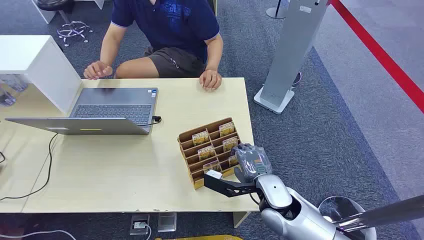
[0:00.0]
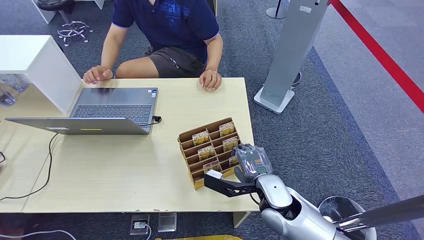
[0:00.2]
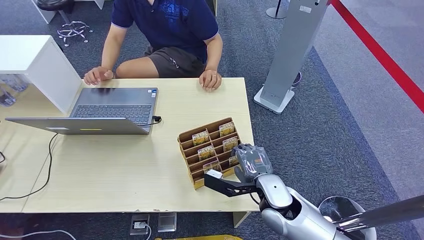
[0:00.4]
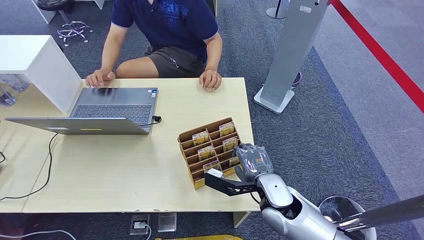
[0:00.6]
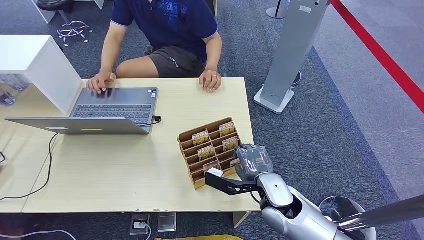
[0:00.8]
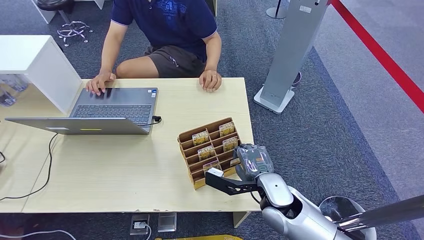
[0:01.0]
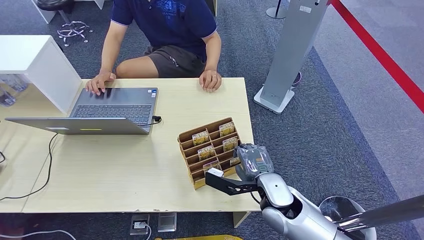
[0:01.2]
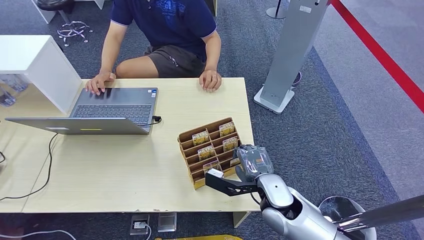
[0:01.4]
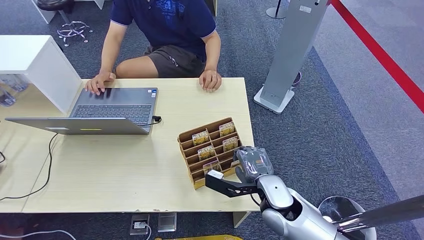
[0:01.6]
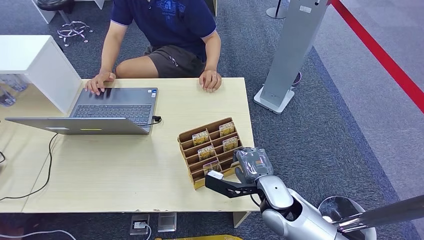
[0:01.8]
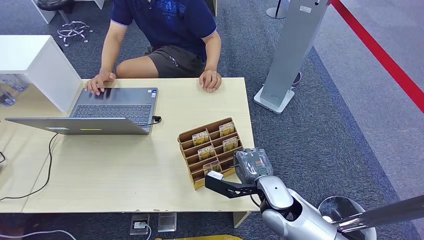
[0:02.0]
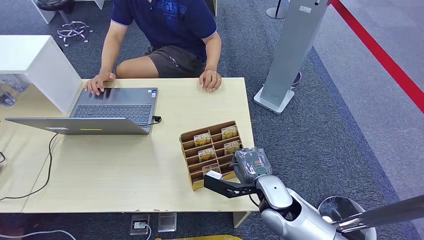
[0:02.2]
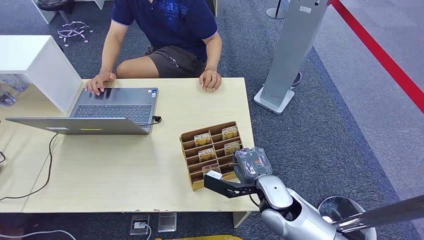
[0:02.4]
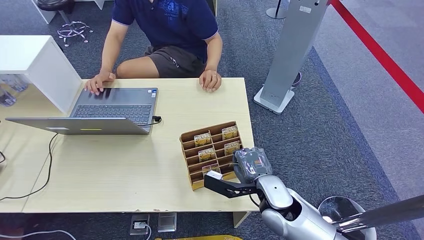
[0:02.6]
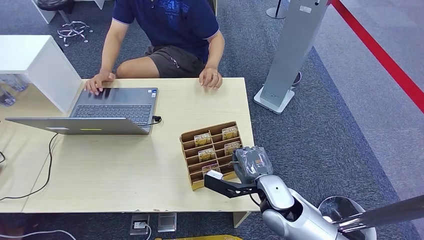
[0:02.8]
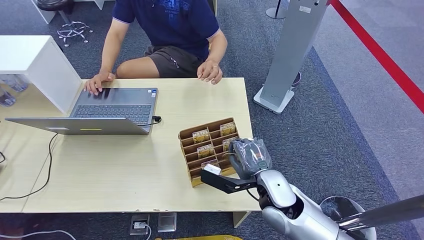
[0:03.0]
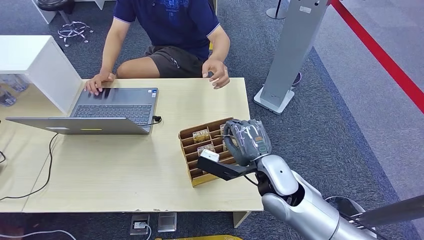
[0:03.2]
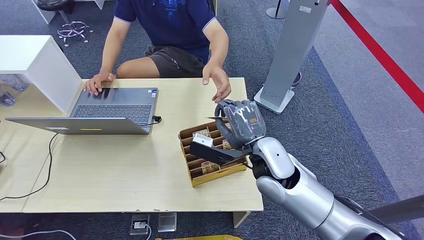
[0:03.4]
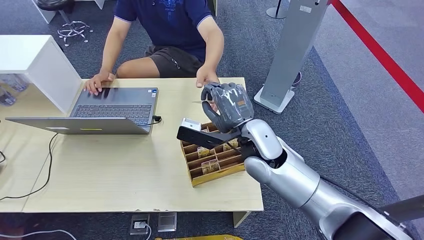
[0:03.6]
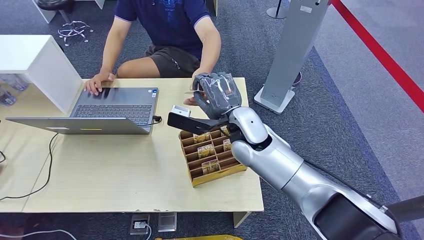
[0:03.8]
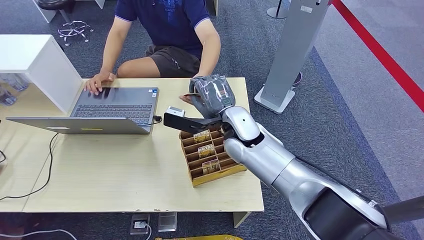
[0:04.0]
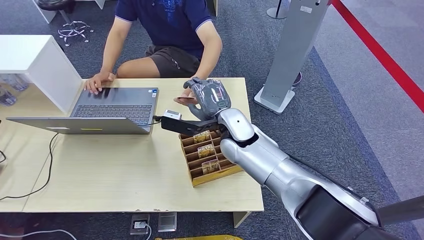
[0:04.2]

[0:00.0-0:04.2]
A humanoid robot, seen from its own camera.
Step, 0:00.0 to 0:03.0: Pick up the key card from the card box.
Step, 0:03.4 to 0:04.2: Hand the key card to the target.
0:01.4 to 0:02.8: Both hands stay put.
0:02.8 to 0:04.2: The right hand heads forward, to the left and upward, covering approximately 20 cm.

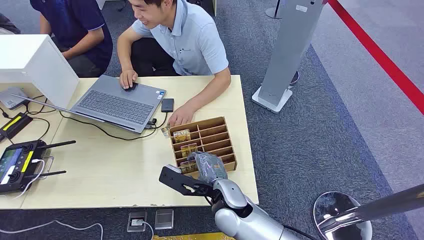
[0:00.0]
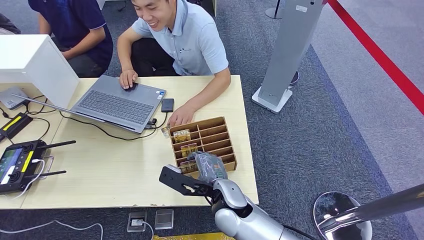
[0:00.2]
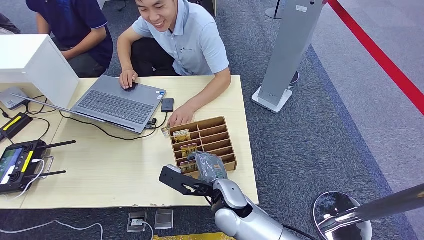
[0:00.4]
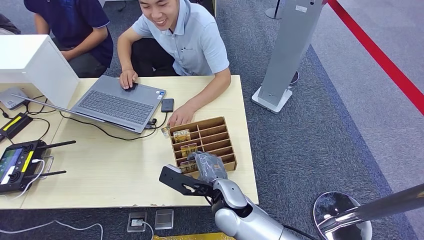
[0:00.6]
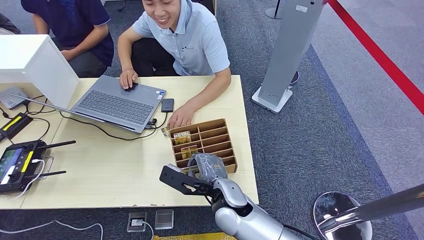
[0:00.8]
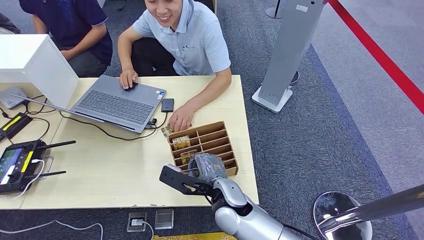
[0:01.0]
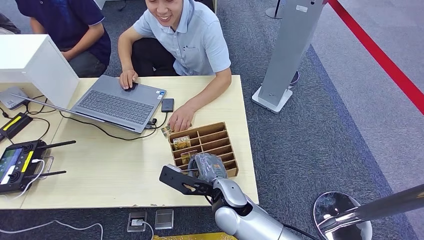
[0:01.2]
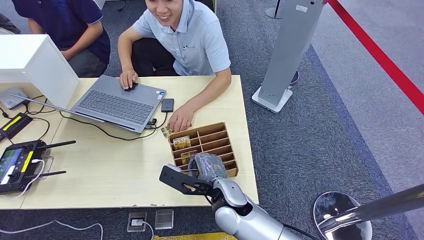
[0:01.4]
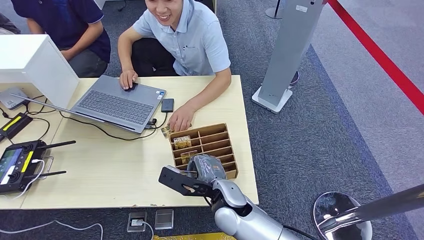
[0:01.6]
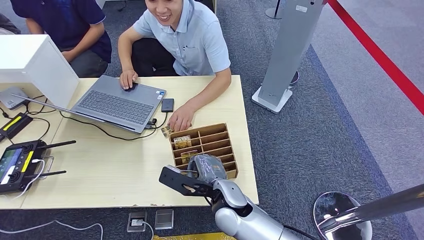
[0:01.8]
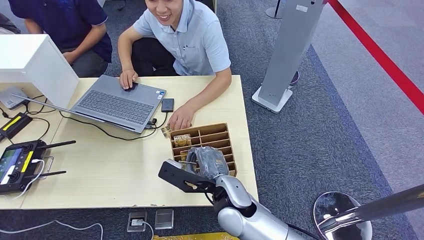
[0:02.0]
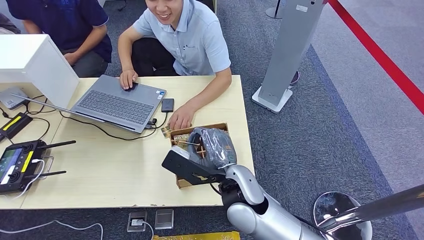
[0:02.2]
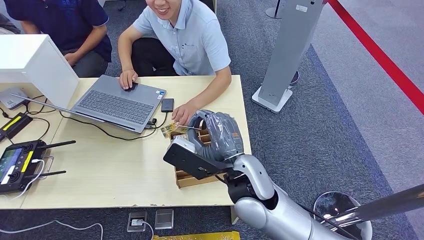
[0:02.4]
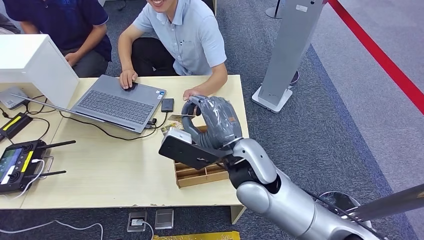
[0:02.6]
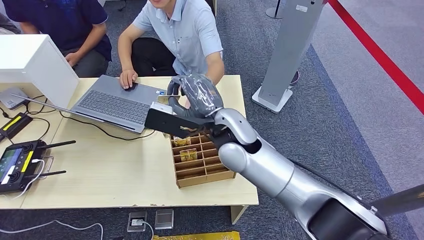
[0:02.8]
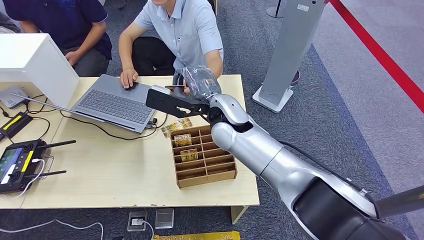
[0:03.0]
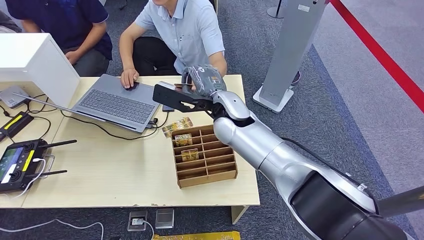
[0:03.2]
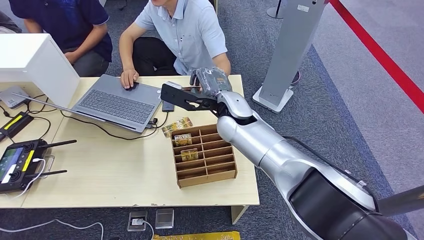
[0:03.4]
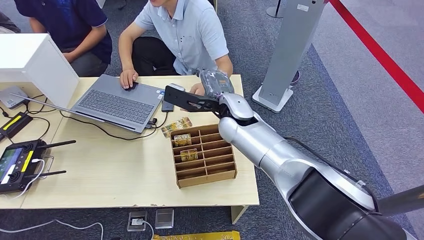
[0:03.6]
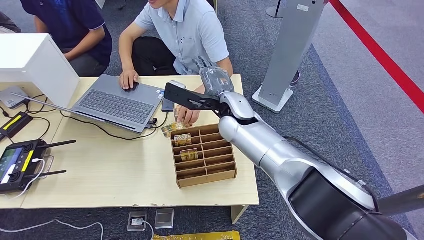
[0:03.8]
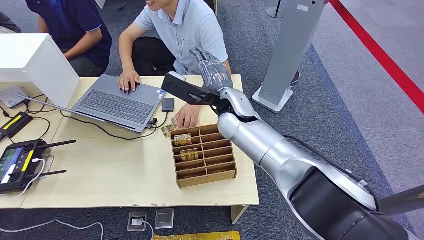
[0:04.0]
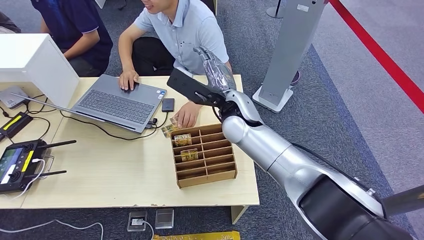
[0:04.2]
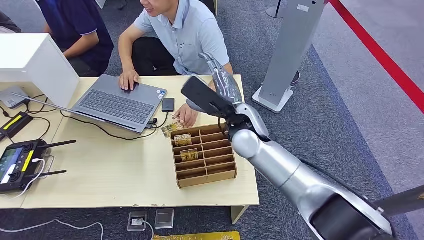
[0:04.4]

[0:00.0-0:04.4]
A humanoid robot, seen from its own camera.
Step, 0:00.0 to 0:02.2: Pick up the key card from the card box.
Step, 0:02.6 to 0:04.2: Hand the key card to the target.
0:03.0 to 0:04.4: The hands stay close to where they were, moving slightly.

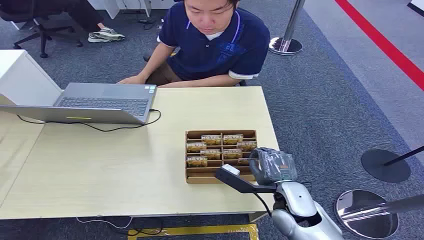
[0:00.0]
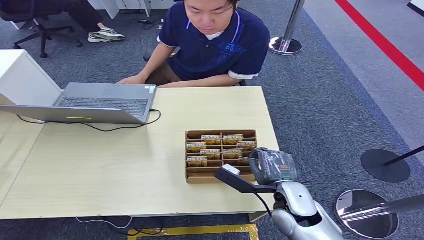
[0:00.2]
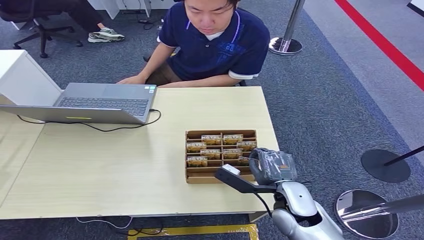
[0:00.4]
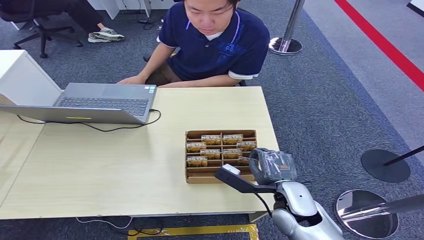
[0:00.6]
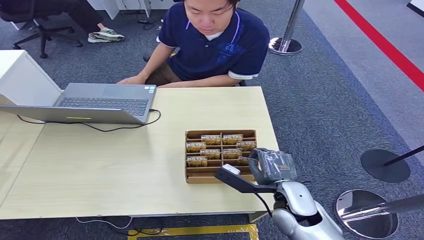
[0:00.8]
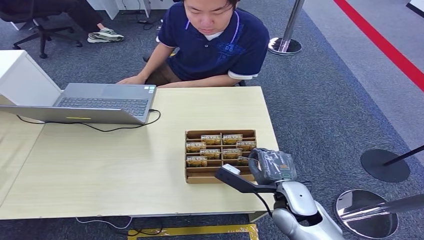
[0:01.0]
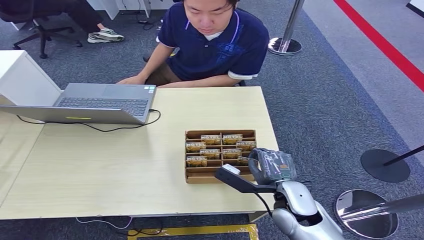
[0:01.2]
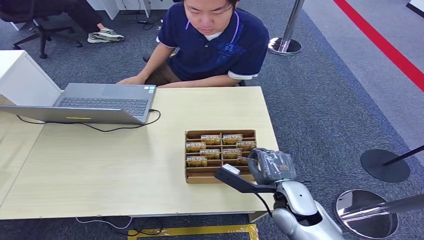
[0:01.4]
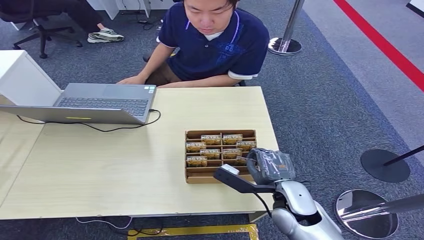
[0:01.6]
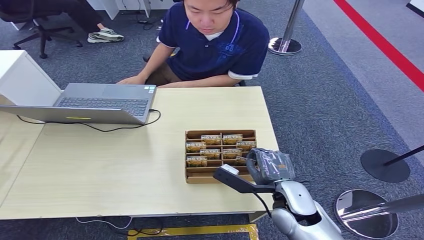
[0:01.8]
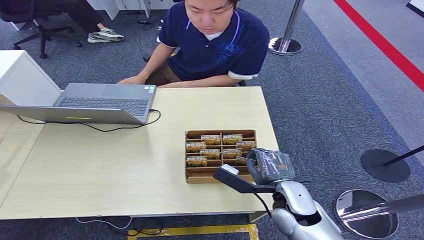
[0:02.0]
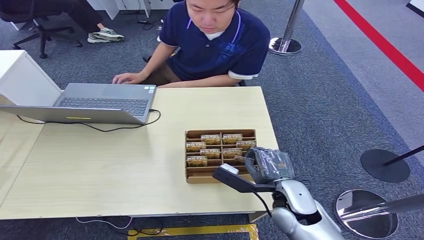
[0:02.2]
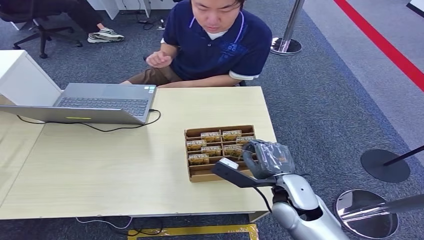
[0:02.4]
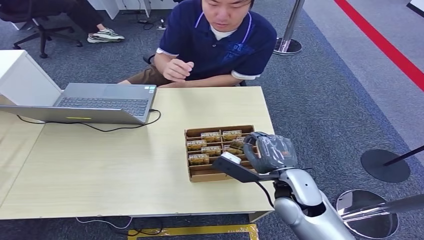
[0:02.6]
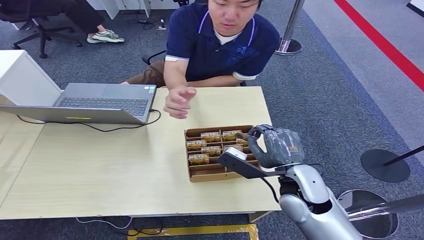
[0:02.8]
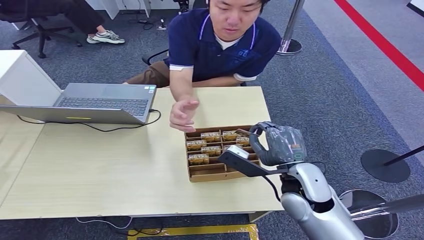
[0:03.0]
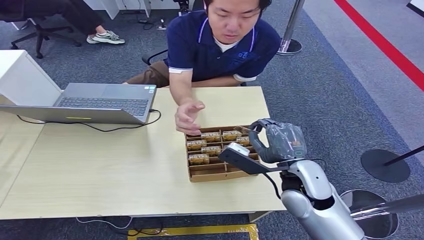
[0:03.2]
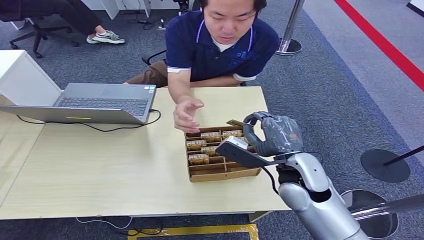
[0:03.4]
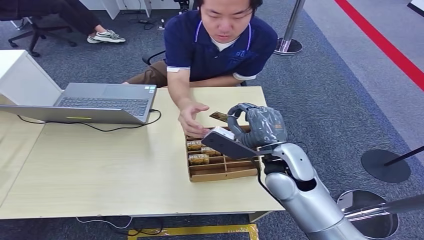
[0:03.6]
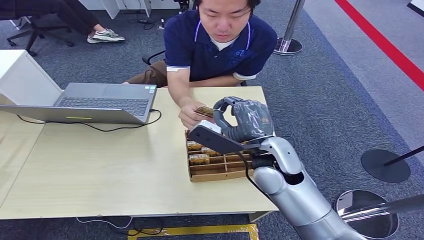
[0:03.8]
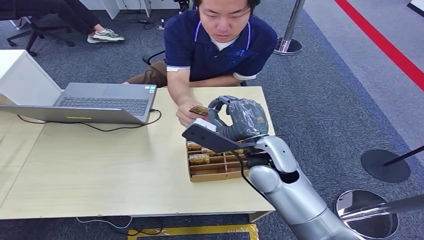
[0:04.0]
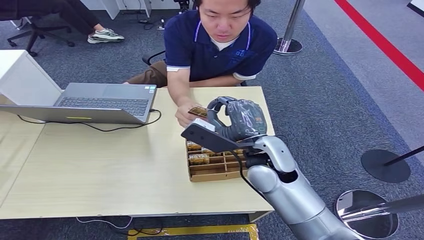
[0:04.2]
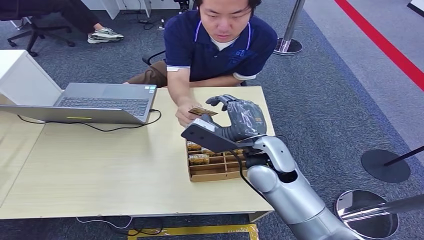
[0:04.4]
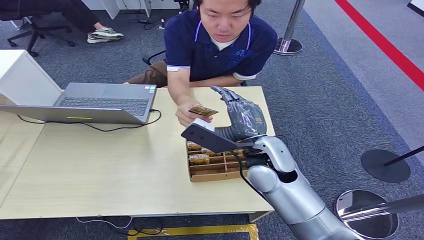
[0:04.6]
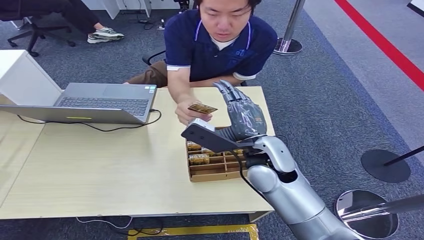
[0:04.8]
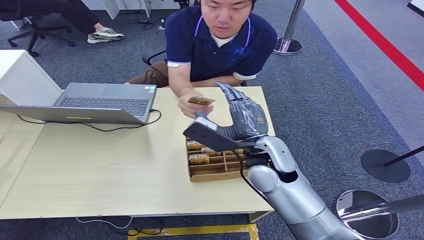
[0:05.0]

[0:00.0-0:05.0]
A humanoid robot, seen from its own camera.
Step, 0:00.0 to 0:03.4: Pick up the key card from the card box.
Step, 0:03.6 to 0:05.0: Hand the key card to the target.
0:01.6 to 0:03.4: The right hand travels upward by some 10 cm.
0:03.4 to 0:05.0: The right hand shifts some 5 cm to the left.

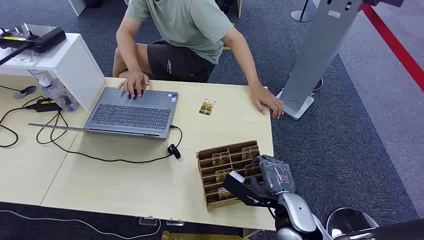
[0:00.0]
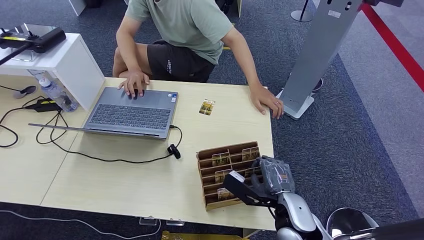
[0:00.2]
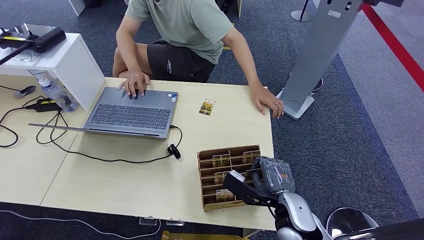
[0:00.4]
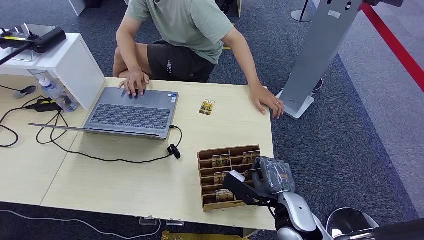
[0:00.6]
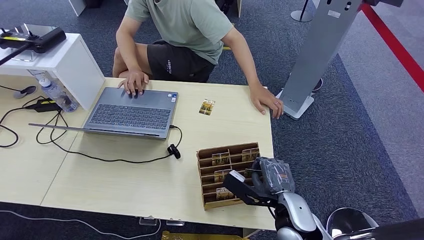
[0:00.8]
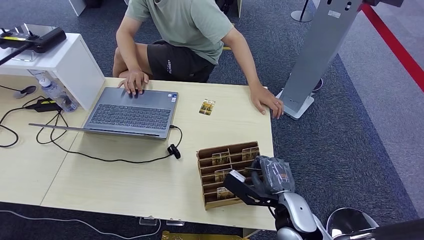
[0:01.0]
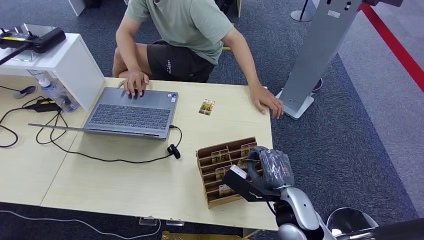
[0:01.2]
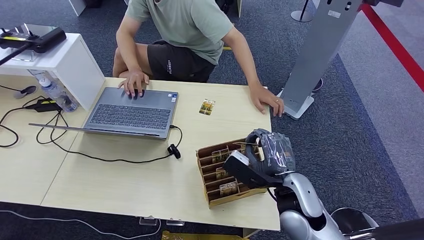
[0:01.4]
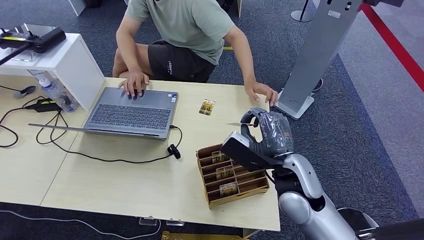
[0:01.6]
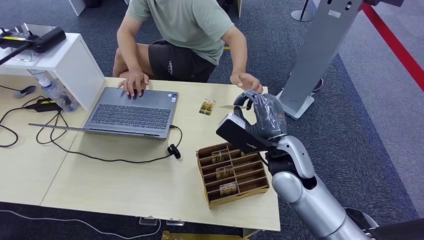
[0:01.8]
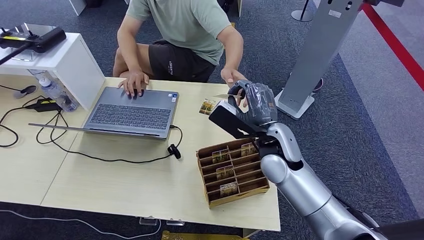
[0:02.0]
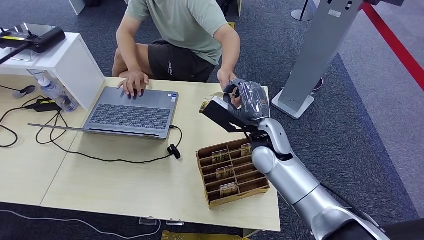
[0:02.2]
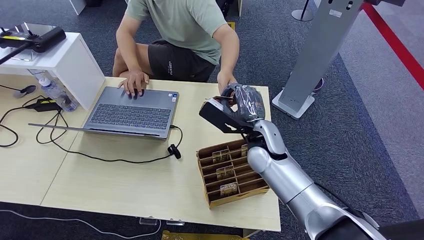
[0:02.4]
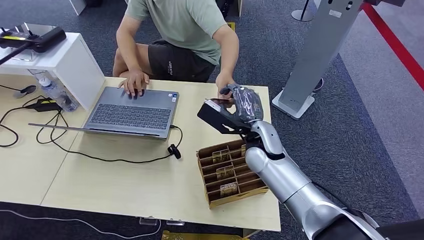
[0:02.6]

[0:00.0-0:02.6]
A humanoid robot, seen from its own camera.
Step, 0:00.0 to 0:01.2: Pick up the key card from the card box.
Step, 0:01.4 to 0:02.4: Hand the key card to the target.
0:01.2 to 0:02.6: The right hand moves forward, upward and to the left, some 25 cm.
